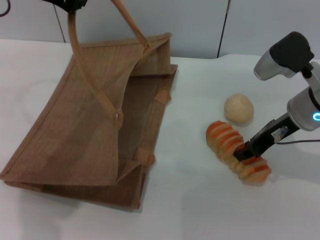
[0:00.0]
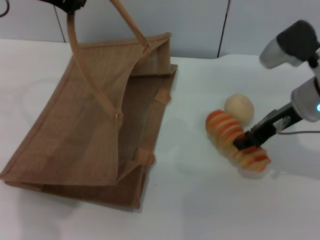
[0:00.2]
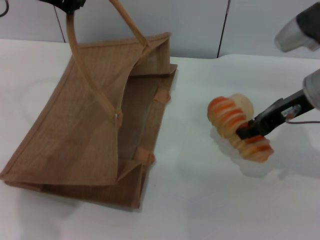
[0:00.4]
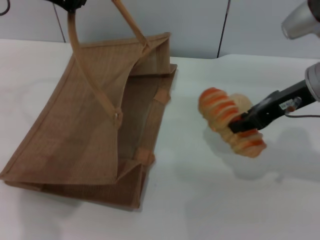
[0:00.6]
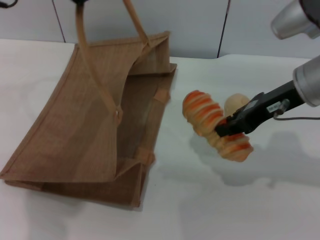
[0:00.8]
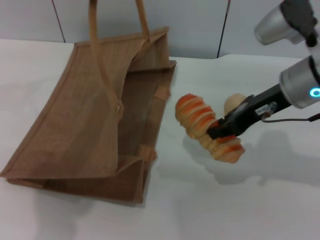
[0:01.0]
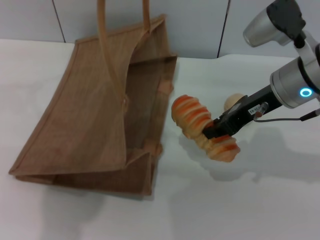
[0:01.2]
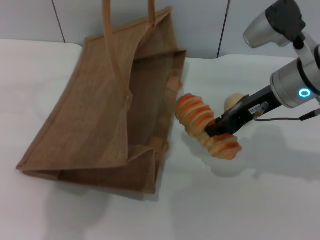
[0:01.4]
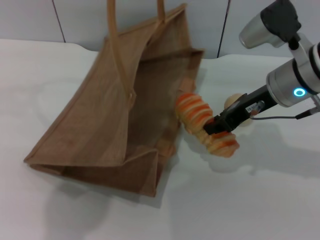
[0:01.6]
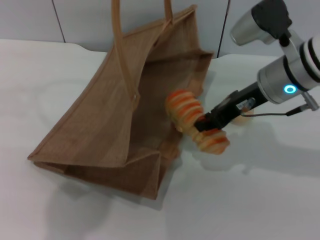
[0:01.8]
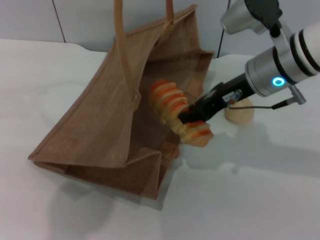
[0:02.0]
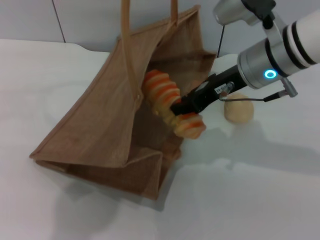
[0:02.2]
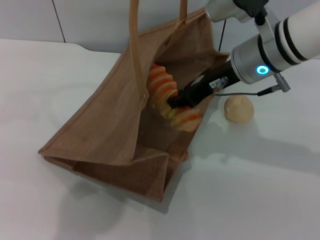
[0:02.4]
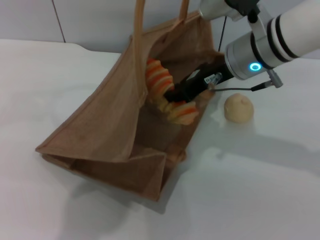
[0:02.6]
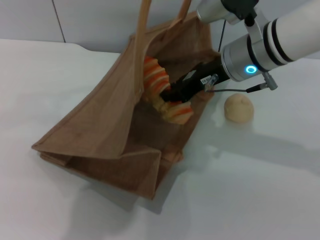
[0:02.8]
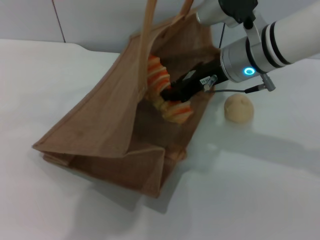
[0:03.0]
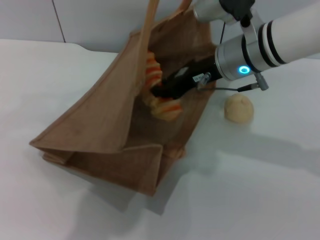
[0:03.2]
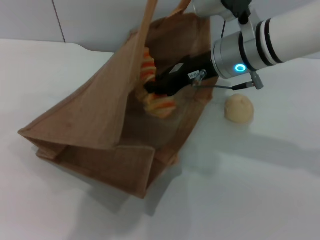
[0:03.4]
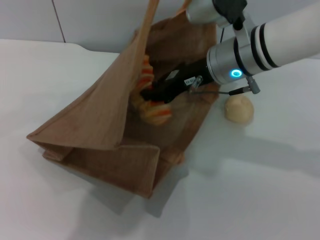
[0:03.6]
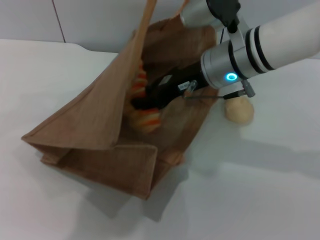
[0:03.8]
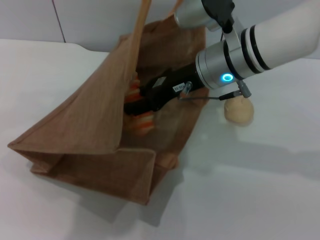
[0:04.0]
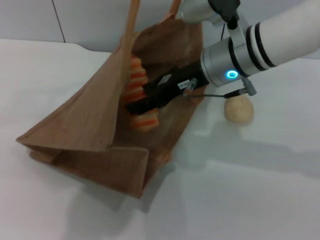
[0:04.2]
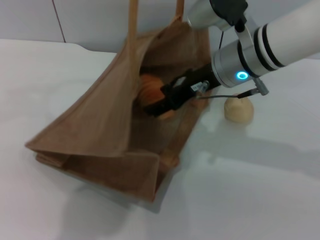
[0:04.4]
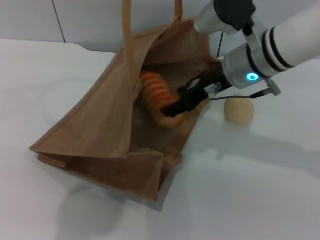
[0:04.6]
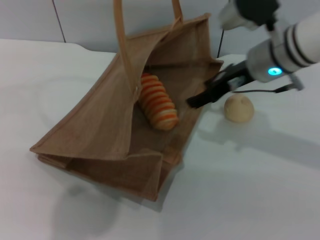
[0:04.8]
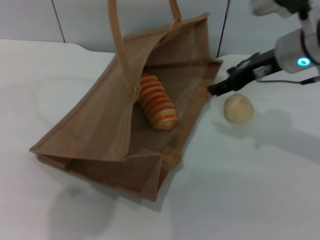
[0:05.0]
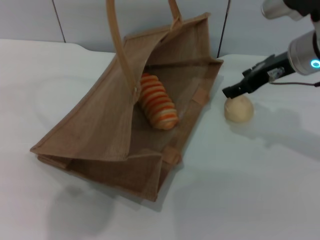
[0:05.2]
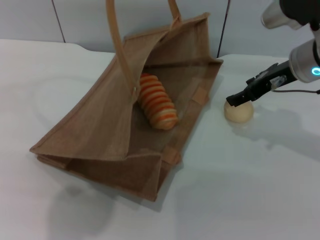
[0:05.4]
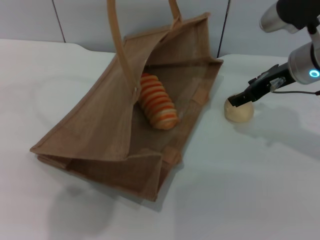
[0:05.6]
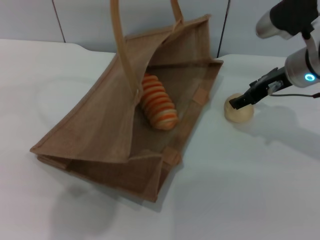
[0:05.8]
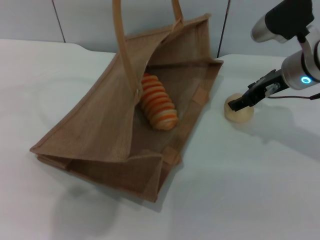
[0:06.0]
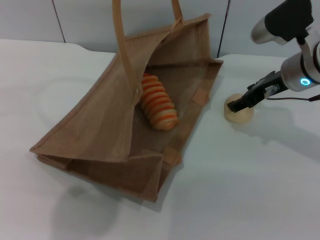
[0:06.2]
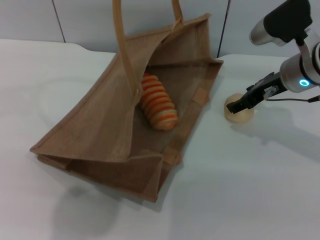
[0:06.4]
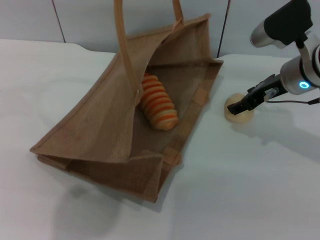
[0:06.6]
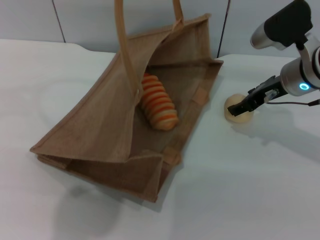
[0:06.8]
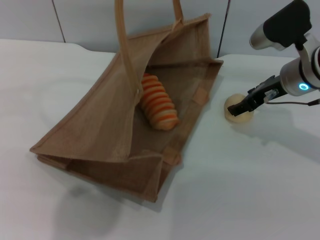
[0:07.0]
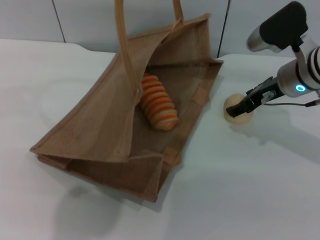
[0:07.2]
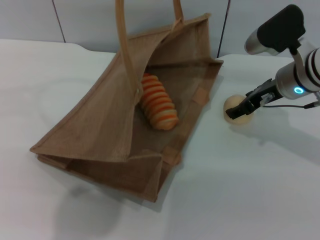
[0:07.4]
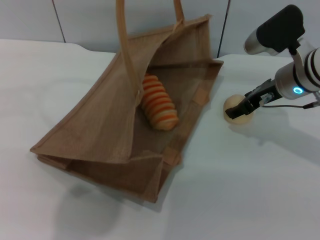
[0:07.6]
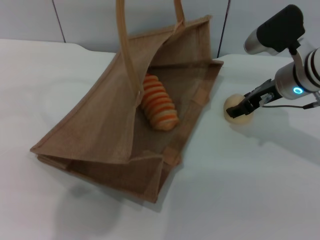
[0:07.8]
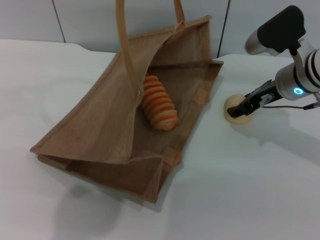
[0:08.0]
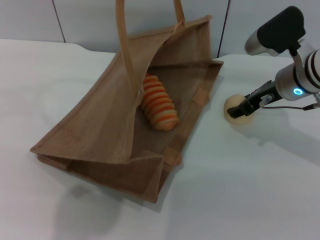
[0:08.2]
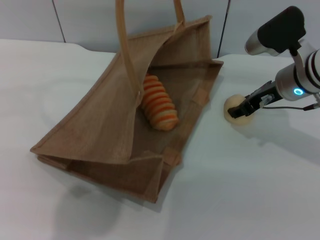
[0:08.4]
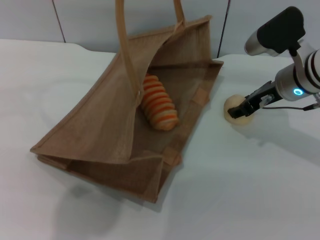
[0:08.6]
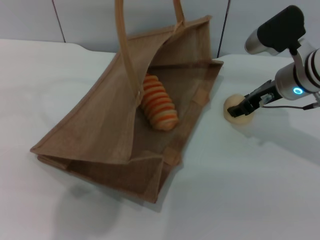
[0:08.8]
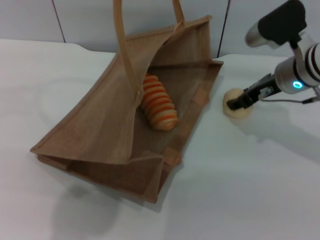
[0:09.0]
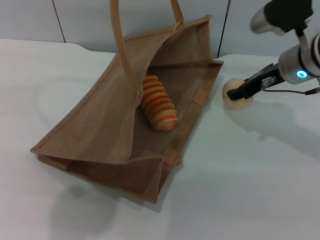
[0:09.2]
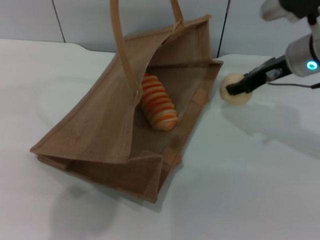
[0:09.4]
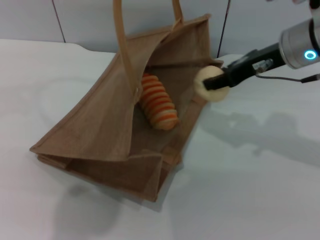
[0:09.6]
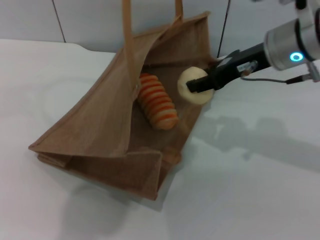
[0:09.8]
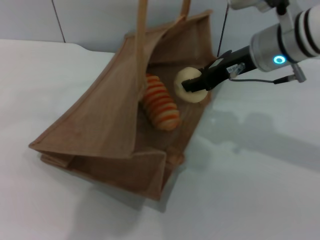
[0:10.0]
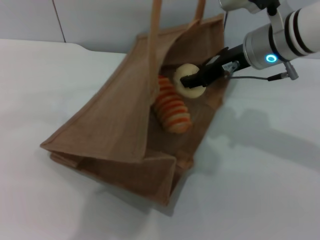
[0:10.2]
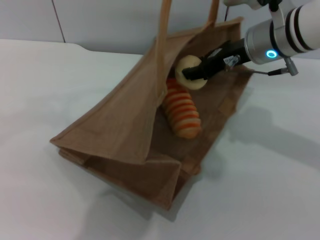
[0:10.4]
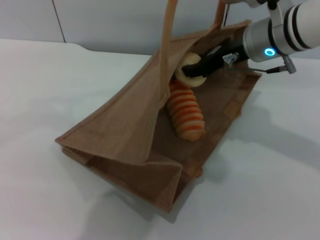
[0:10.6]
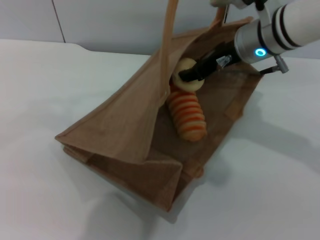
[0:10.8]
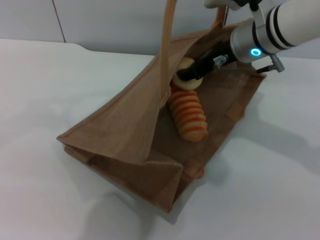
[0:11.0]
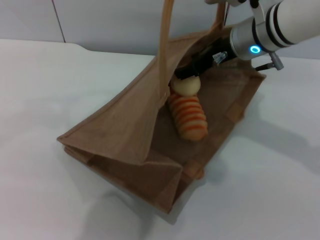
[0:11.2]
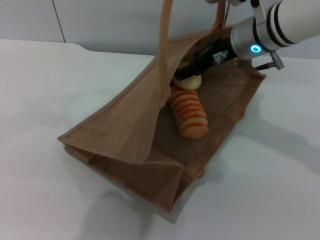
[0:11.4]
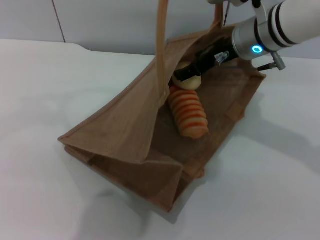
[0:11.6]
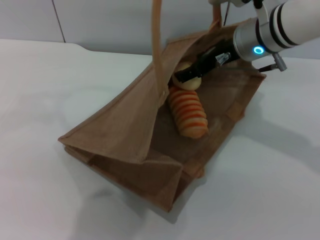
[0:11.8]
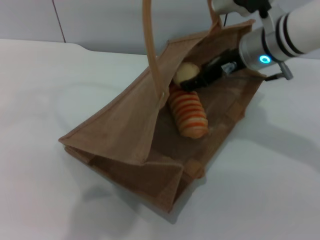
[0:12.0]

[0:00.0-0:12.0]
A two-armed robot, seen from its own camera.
Task of the whole recording: pick up the bread and egg yolk pastry from the table and place it in the brown handbag.
Step, 0:01.0 to 0:05.6: Place the bread into the woven bag with the right gripper.
Step, 0:05.8 to 0:09.2: Pick up the egg yolk pastry with the right gripper.
0:00.0 to 0:01.6: The left gripper travels to the right by roughly 5 cm.
0:01.6 to 0:03.0: The left gripper goes about 5 cm to the right, while the right gripper travels to the left by approximately 5 cm.
0:03.0 to 0:04.4: The right gripper opens up.
0:04.4 to 0:06.0: The right gripper travels to the right by about 10 cm.
0:06.0 to 0:07.6: The grippers stay close to where they were, moving slightly.
0:07.6 to 0:09.0: The right gripper closes.
0:09.0 to 0:10.4: The left gripper is displaced to the right by some 5 cm, while the right gripper goes roughly 10 cm upward and to the left.
0:10.4 to 0:12.0: The right gripper opens its fingers.

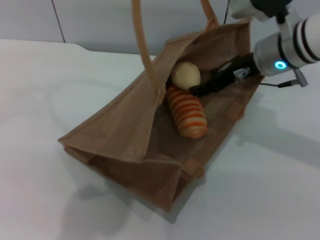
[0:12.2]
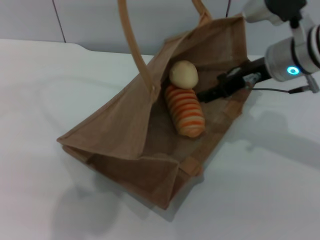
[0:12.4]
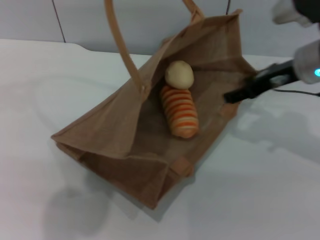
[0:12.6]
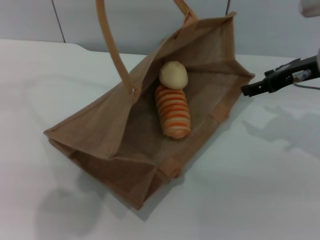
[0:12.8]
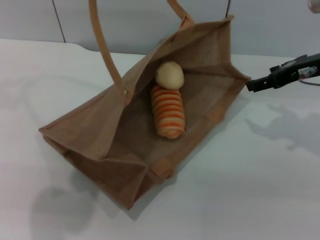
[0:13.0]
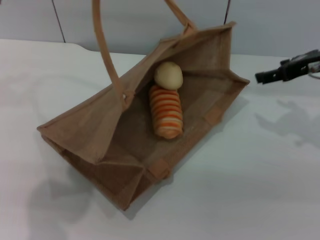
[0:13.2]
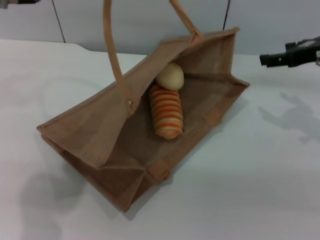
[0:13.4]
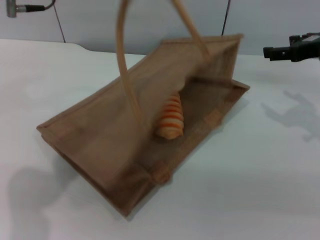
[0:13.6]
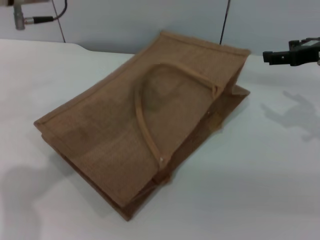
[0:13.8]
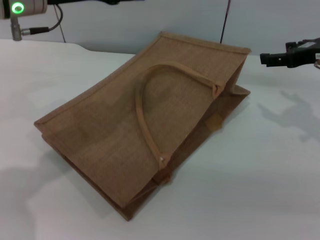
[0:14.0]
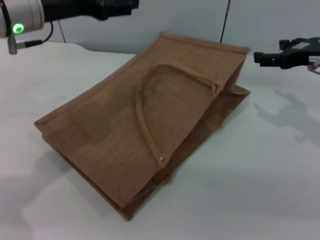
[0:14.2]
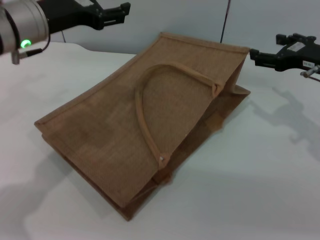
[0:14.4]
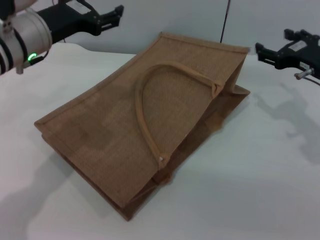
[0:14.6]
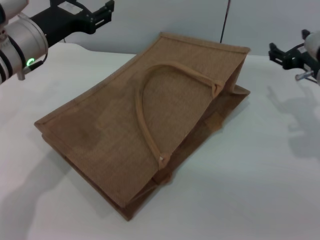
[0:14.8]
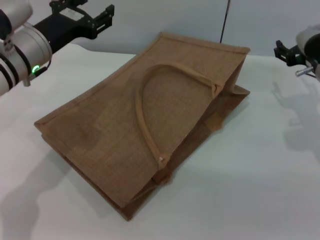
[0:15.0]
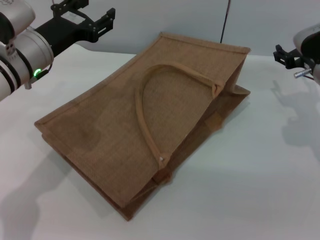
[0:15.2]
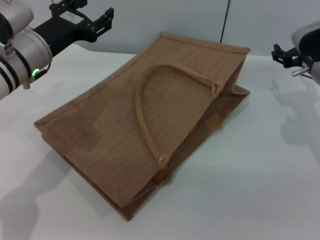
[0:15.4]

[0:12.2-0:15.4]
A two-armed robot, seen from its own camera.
Task of the whole recording: pick up the bread and egg yolk pastry from the table and place it in the brown handbag.
Step, 0:12.6 to 0:14.4: Lower the woven bag with the left gripper to close it.
0:12.2 to 0:13.8: The left gripper heads to the left and downward, covering approximately 10 cm, and opens up. The right gripper shifts roughly 15 cm to the right.
0:13.8 to 0:15.4: The left gripper travels downward by roughly 10 cm, while the right gripper moves downward, about 10 cm.

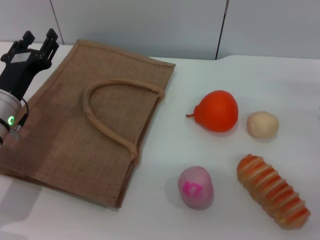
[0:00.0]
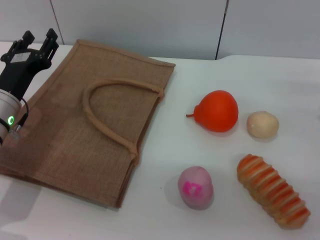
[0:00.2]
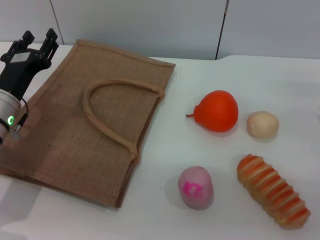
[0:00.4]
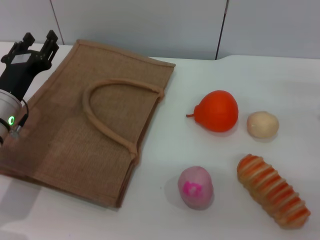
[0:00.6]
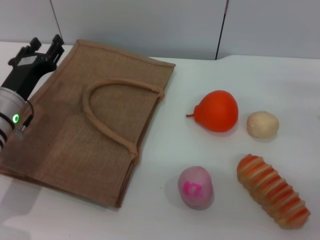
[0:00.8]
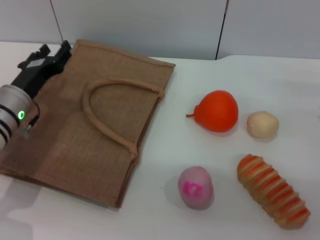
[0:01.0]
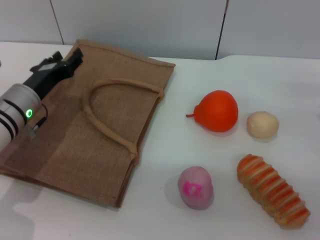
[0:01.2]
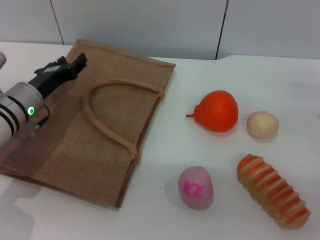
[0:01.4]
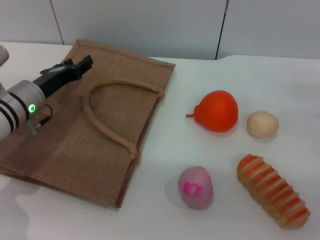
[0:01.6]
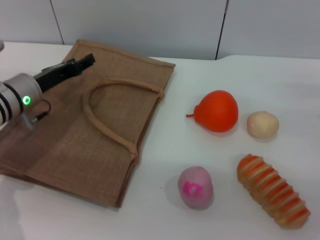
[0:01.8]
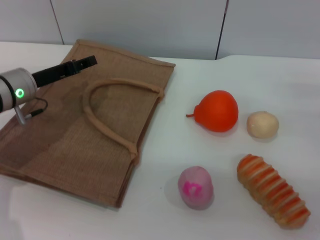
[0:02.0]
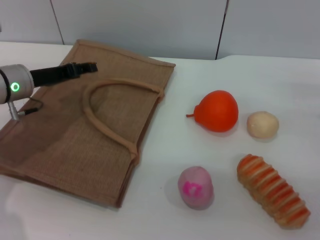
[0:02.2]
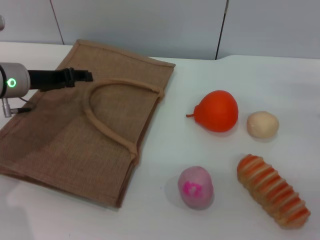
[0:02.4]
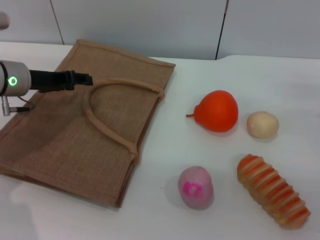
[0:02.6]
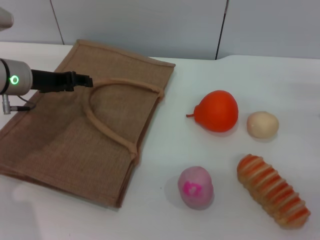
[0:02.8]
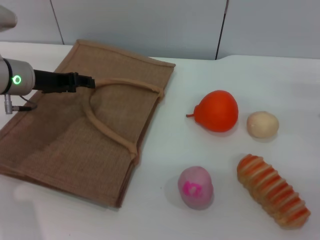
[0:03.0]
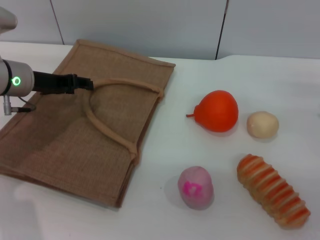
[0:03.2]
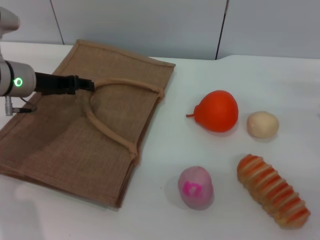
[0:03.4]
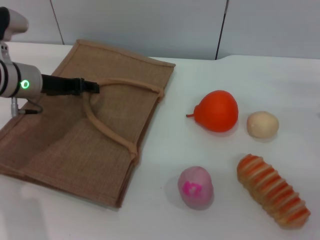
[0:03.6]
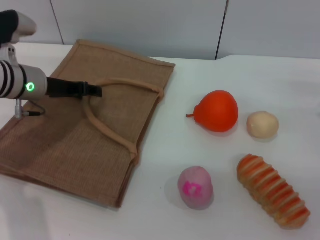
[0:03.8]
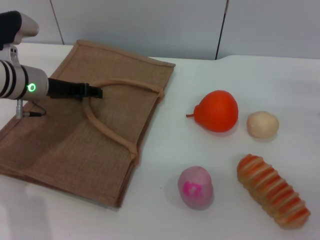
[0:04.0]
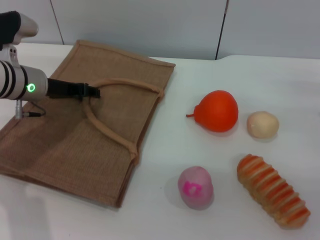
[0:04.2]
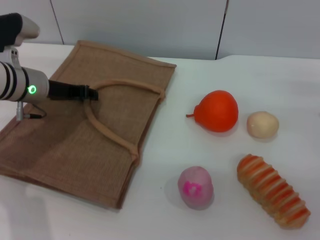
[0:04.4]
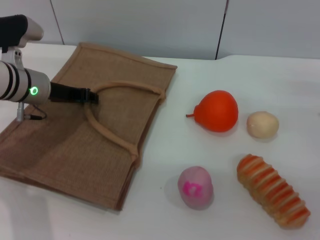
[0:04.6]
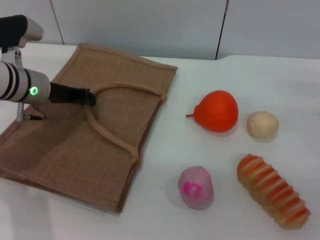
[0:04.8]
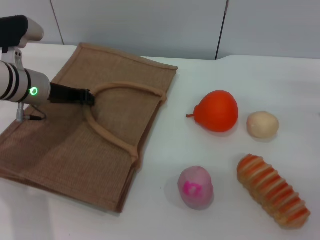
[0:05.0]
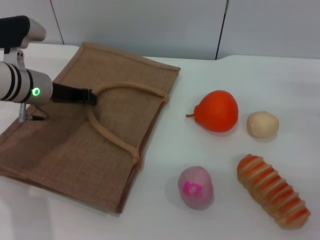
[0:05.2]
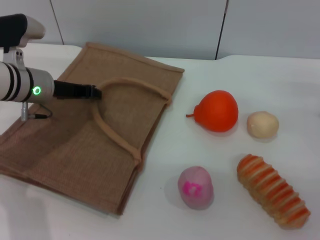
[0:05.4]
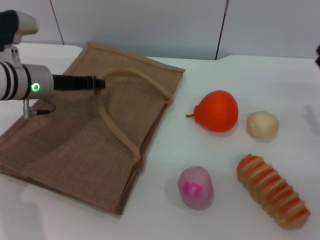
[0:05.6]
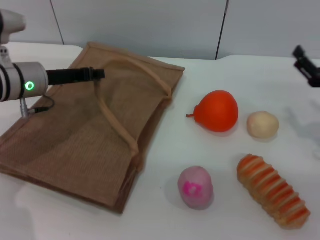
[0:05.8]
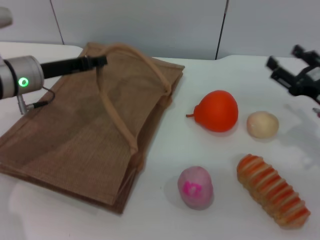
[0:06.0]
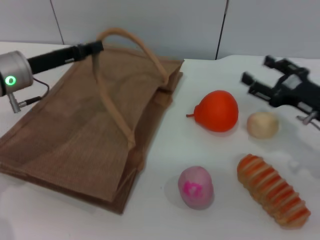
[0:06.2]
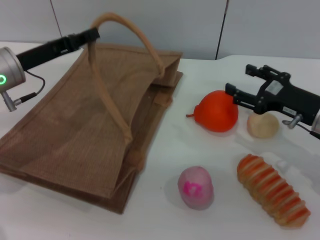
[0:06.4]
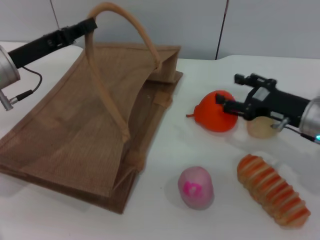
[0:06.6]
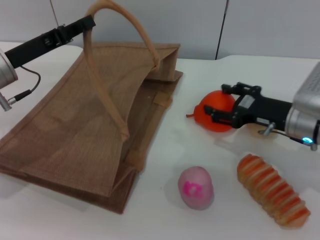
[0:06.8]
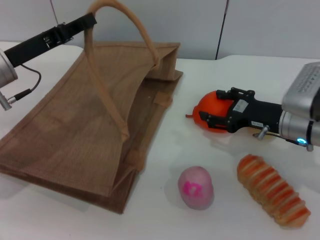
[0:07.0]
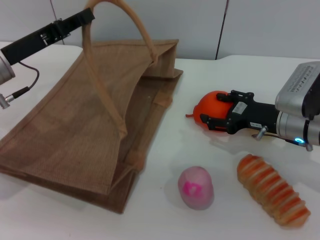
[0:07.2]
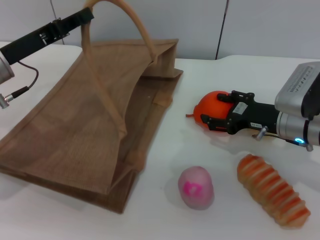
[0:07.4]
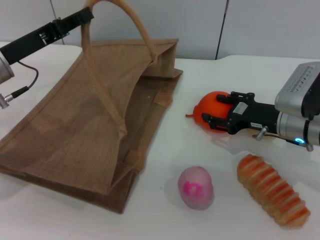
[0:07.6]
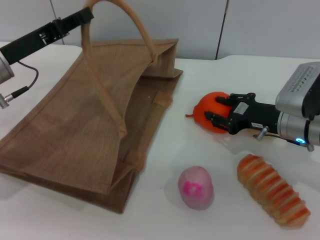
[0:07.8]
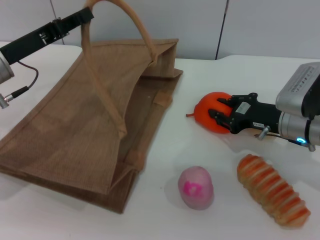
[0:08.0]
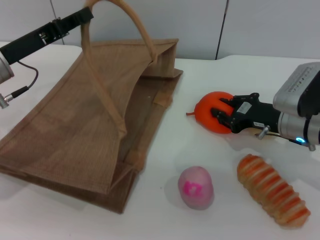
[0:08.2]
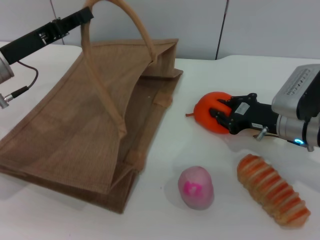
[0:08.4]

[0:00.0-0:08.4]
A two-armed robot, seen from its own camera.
Task of the whole recording: pick up the orange from the table and place it in the brown handbag.
Step, 0:00.0 to 0:05.4: Lift the woven bag with the left gripper to open it.
0:01.4 to 0:02.8: The left gripper shifts about 5 cm upward.
0:02.8 to 0:04.2: The grippers move only a little.
0:04.2 to 0:05.6: The left gripper closes up.
0:05.6 to 0:07.0: The right gripper goes some 10 cm to the left. The left gripper changes place by approximately 5 cm.
0:07.0 to 0:08.4: The right gripper closes its fingers.
